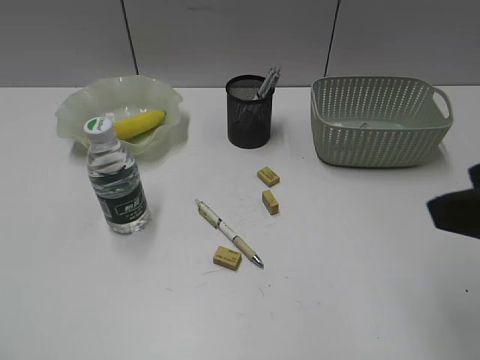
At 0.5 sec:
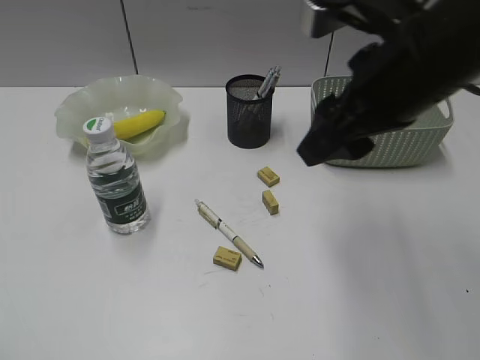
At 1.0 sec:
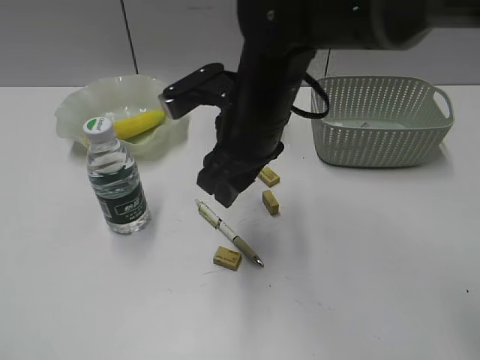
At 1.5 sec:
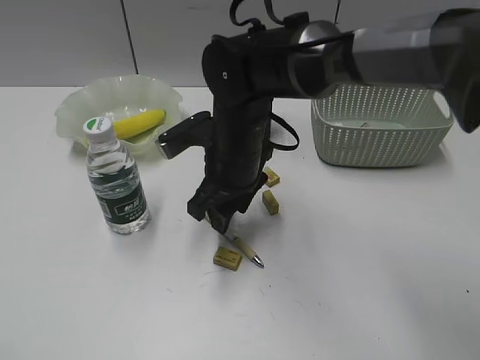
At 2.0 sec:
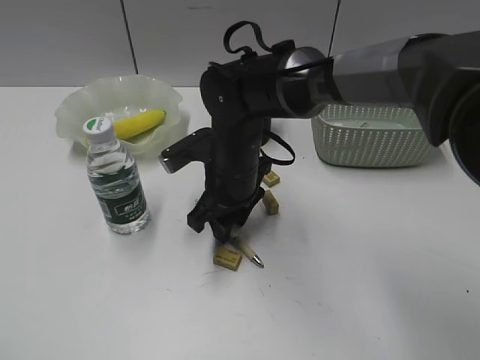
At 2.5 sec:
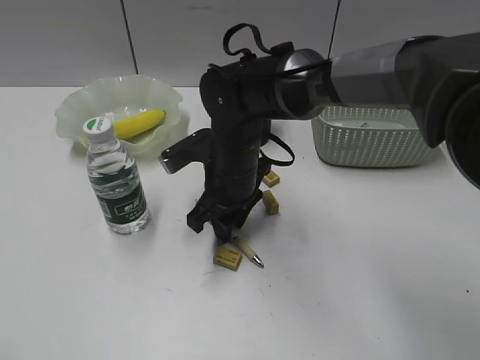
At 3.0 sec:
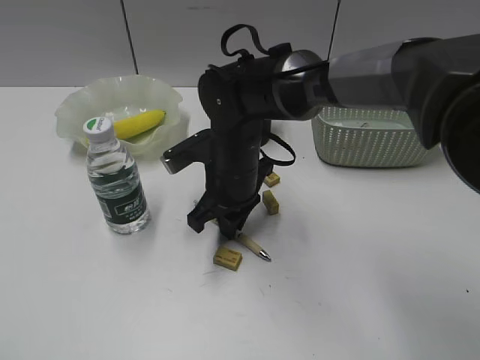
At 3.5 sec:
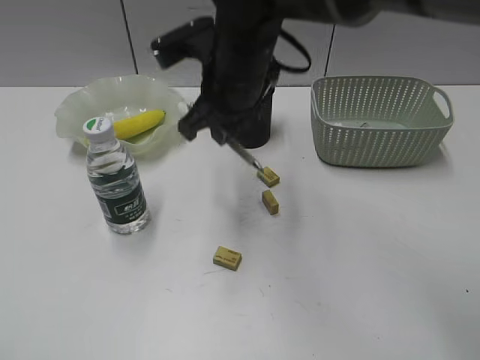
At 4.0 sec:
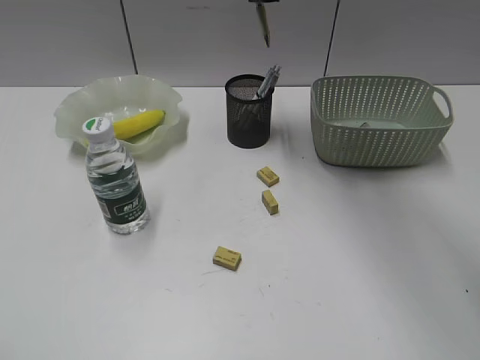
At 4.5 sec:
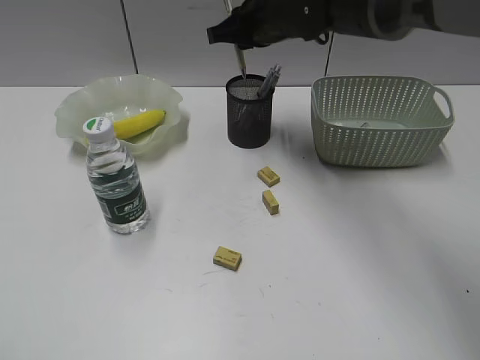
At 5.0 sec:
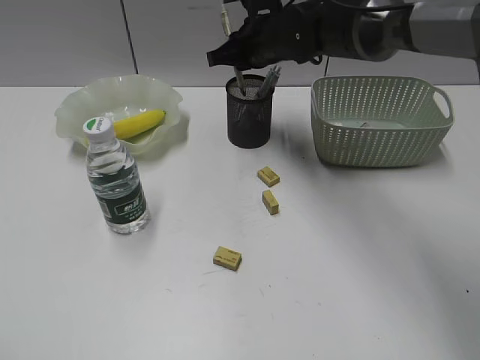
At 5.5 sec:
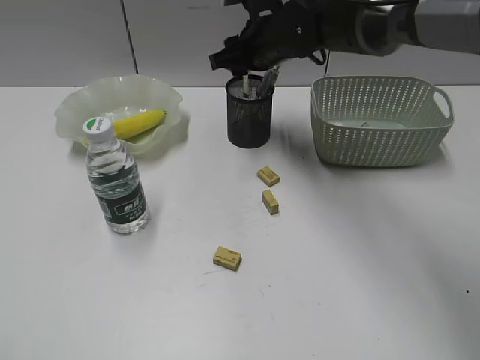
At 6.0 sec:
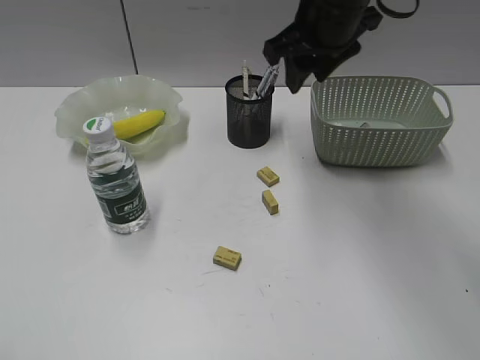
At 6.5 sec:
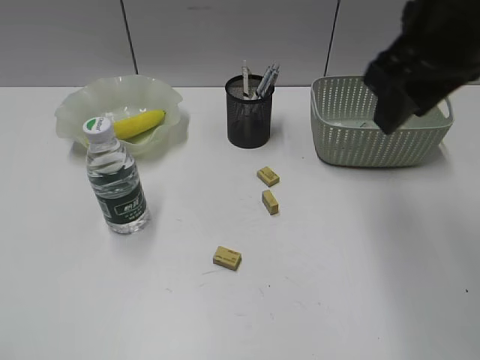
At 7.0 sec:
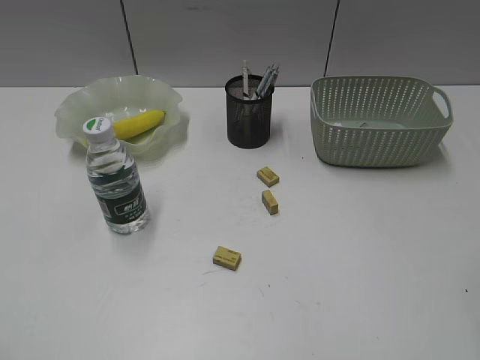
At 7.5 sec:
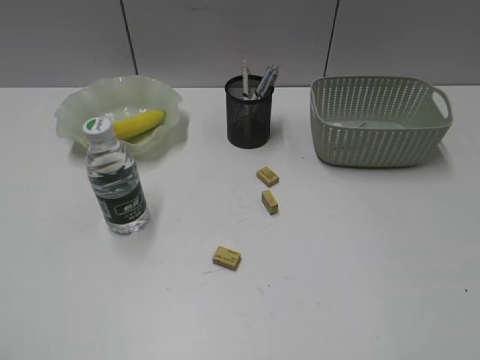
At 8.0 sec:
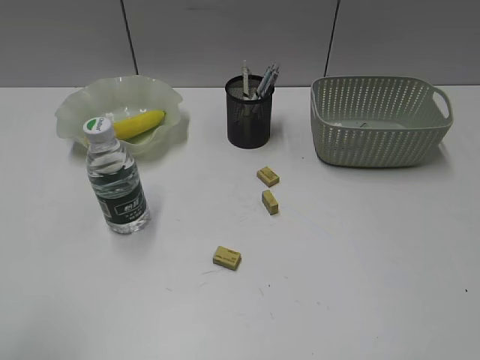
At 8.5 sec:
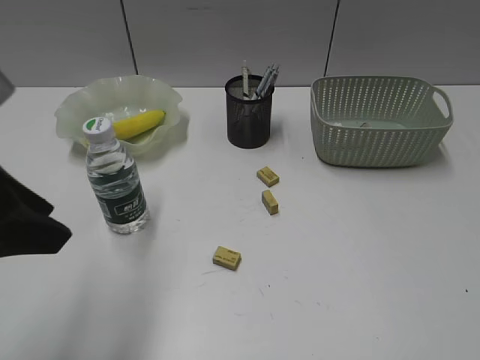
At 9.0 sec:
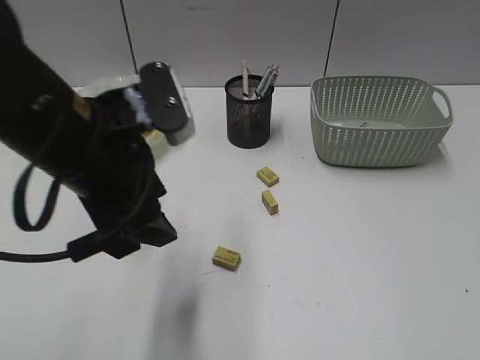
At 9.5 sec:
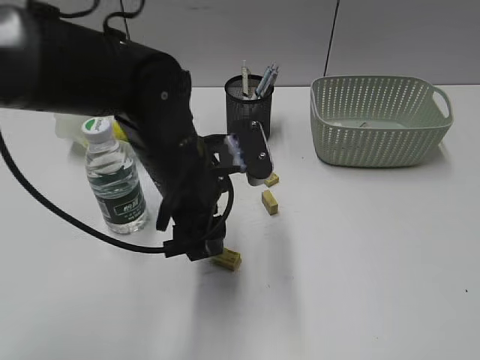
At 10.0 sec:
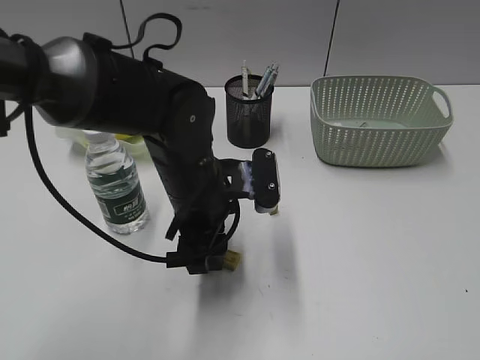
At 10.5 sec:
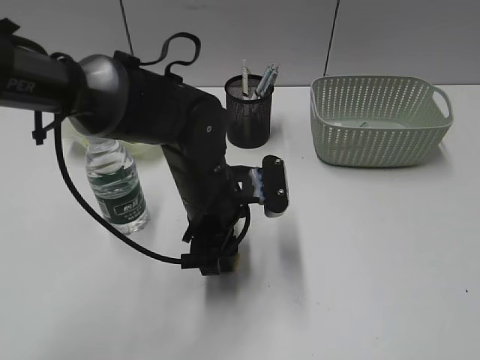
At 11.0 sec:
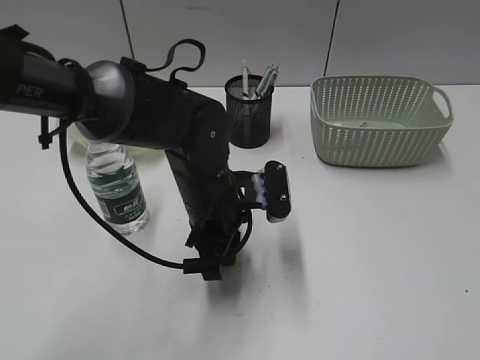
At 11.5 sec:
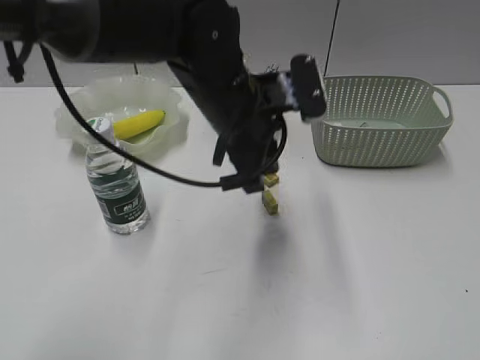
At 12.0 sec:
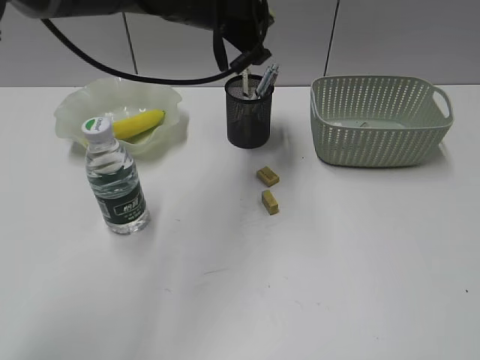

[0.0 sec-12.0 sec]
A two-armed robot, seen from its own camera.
Step, 0.0 sec to 3.0 sec: Grasp the yellow pen with right gripper.
Step, 3.5 sec to 5.5 sec: Place the yellow pen in pen holder with right gripper.
Step, 6.0 sec to 11.0 sec: Grasp the eraser with left gripper.
0.0 sec to 2.0 sec: The right gripper heads to the left, forward and downward, covering some 40 cm.
2.0 sec to 4.0 sec: The right gripper moves upward and forward, roughly 20 cm, and closes its fingers.
4.0 sec to 6.0 sec: The right gripper reaches some 10 cm downward, then returns, and opens its fingers.
6.0 sec to 8.0 sec: The right gripper heads backward and to the right, covering roughly 50 cm; the left gripper shifts by roughly 5 cm.
8.0 sec to 10.0 sec: The left gripper shifts about 40 cm to the right, forward and downward.
10.0 sec to 12.0 sec: The left gripper shifts some 20 cm upward and forward, and closes.

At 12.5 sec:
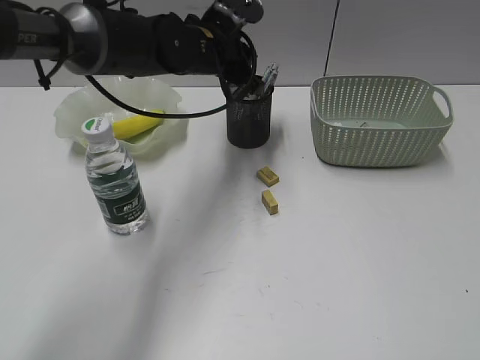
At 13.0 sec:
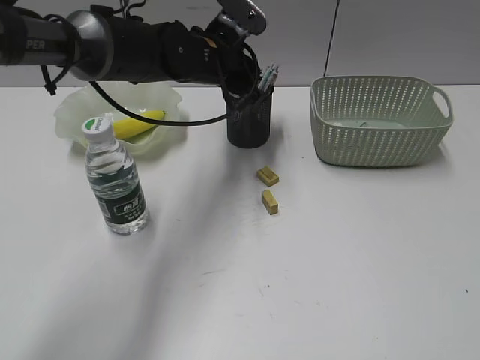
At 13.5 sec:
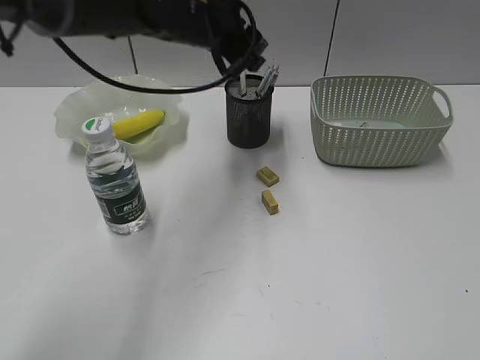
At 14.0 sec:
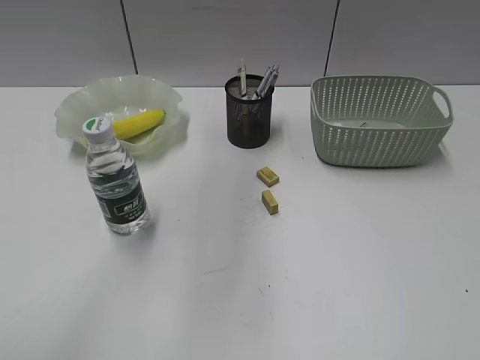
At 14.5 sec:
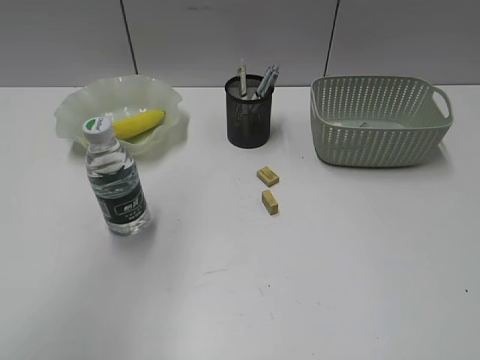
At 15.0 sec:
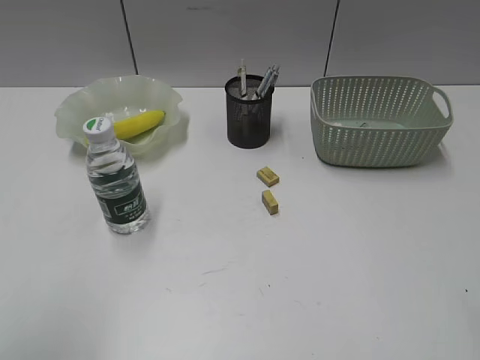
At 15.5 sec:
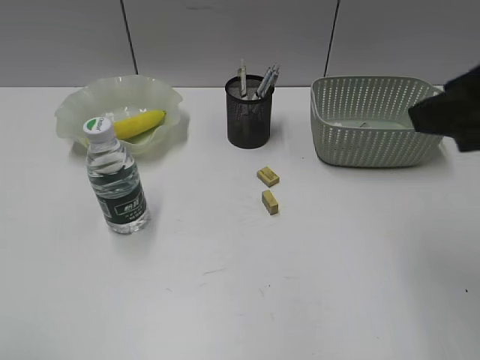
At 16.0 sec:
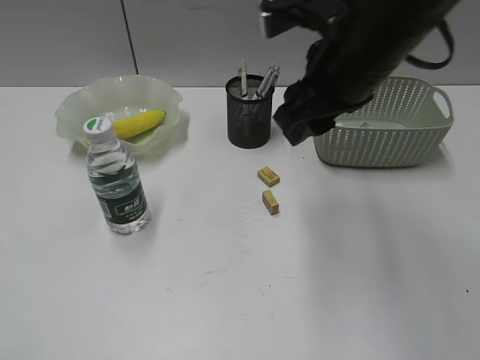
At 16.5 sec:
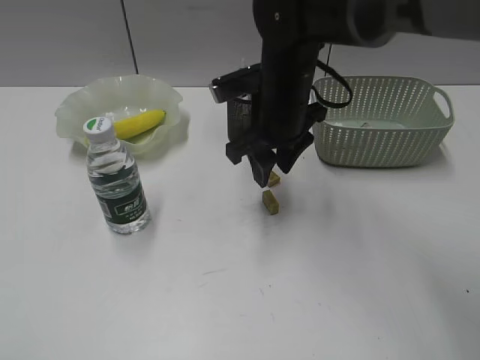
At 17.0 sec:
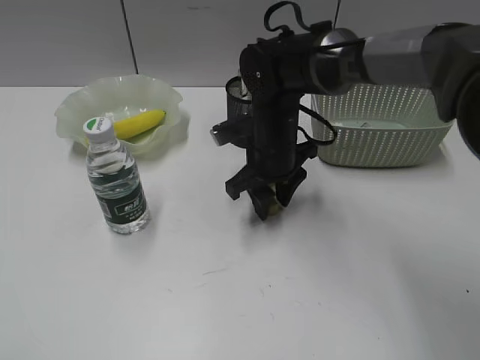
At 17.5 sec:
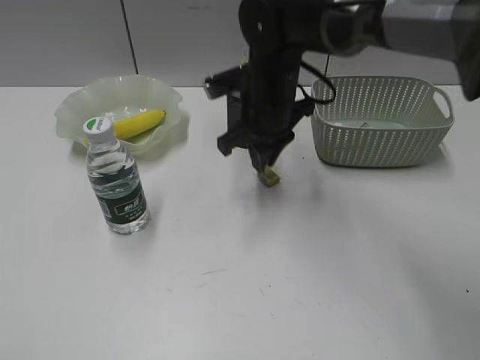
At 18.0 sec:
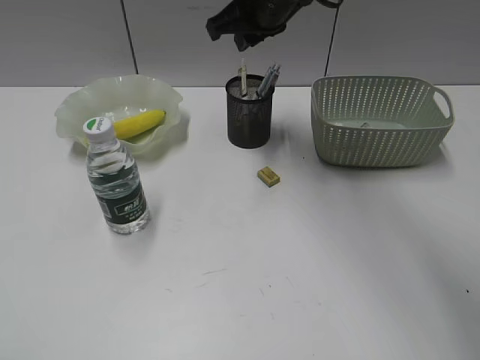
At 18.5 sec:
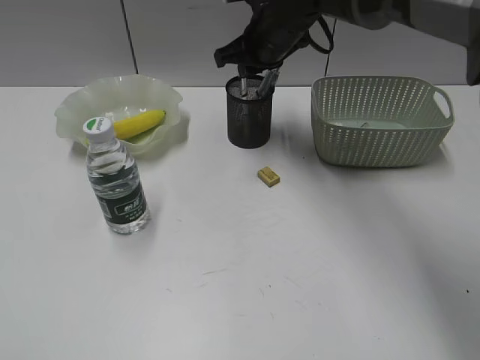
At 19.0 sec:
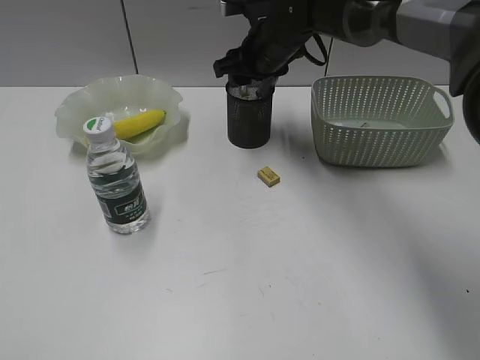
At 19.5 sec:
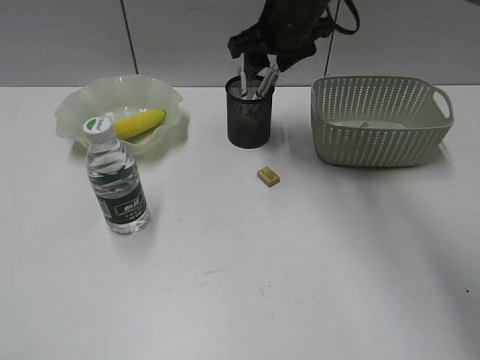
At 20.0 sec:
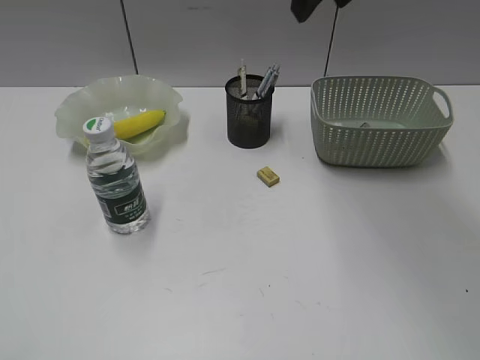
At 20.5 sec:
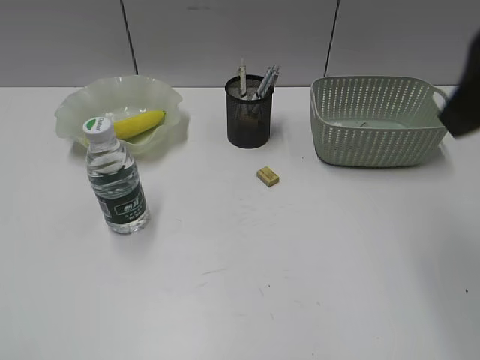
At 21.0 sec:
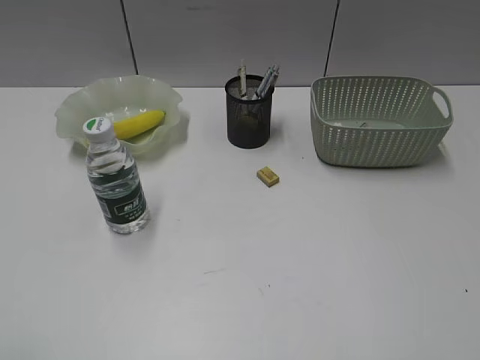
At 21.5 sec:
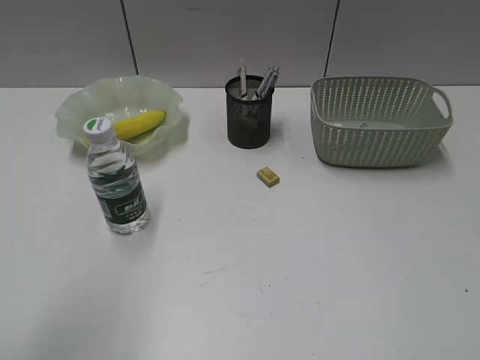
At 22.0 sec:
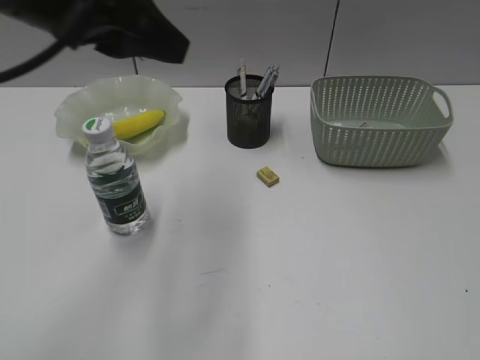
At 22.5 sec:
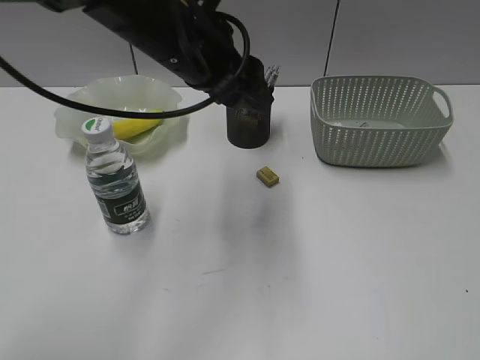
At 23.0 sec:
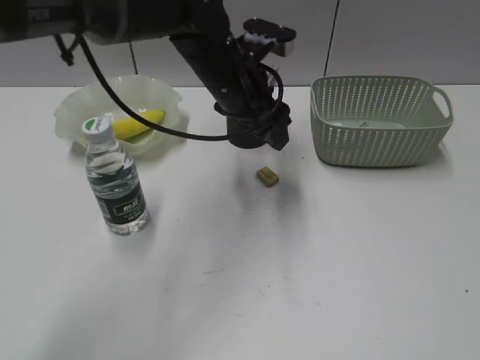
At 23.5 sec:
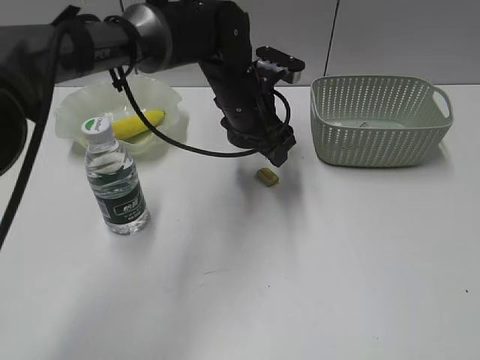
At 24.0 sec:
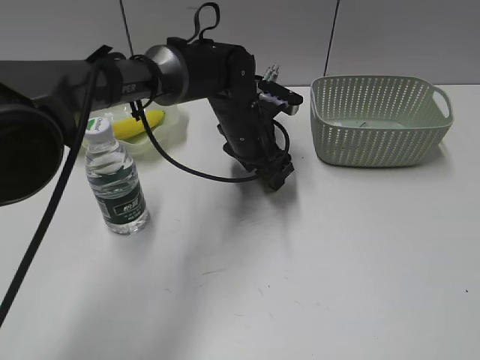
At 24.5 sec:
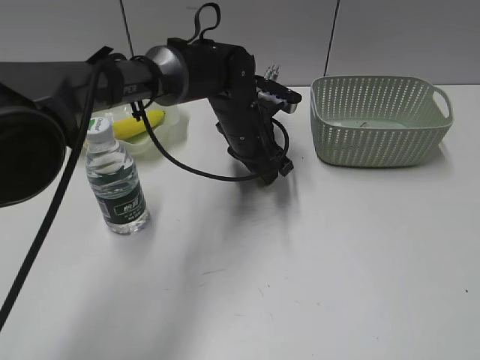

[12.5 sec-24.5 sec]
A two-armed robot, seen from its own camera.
Step, 13.5 sec to 17.0 sec: Grasp the eraser with right gripper.
Step, 17.5 sec to 19.0 sec: Place the eraser in pen holder with right gripper.
Step, 19.5 sec to 24.5 sec: Grasp the eraser with left gripper.
12.5 sec to 14.5 sec: The left gripper moves upward, backward and to the left, about 35 cm, and opens its fingers.
14.5 sec to 16.5 sec: The right gripper is displaced forward and to the left by about 50 cm. The left gripper goes approximately 30 cm backward, downward and to the left.
16.5 sec to 18.5 sec: The right gripper goes up and down, roughly 15 cm each way, reversing 2 times, and closes.
18.5 sec to 20.5 sec: The right gripper moves backward, upward and to the right, some 35 cm, and opens its fingers.
20.5 sec to 22.5 sec: The right gripper travels backward, to the right and downward by approximately 25 cm, while the left gripper heads forward and to the right, covering some 40 cm.
22.5 sec to 24.5 sec: The left gripper moves downward, forward and to the right, some 20 cm.

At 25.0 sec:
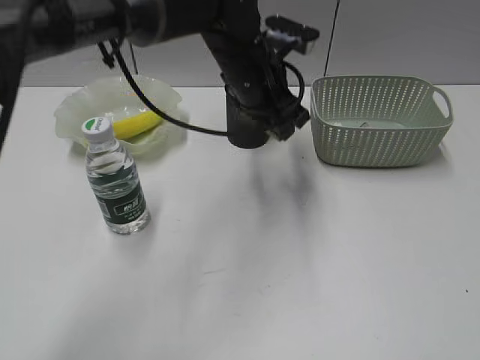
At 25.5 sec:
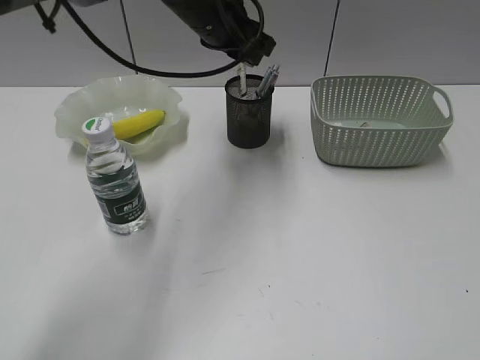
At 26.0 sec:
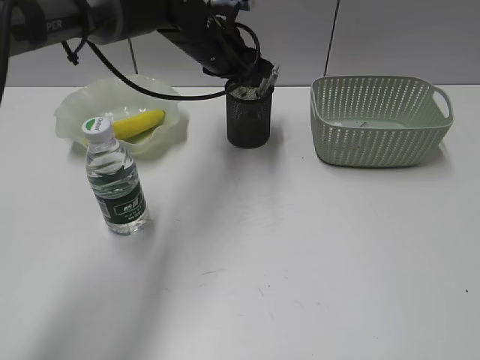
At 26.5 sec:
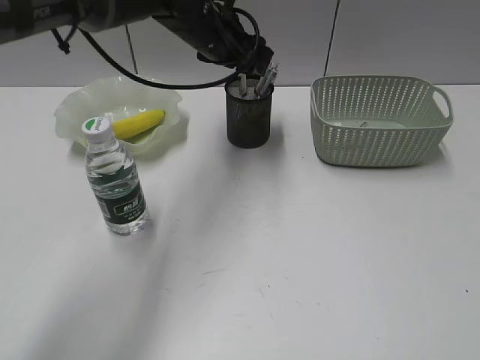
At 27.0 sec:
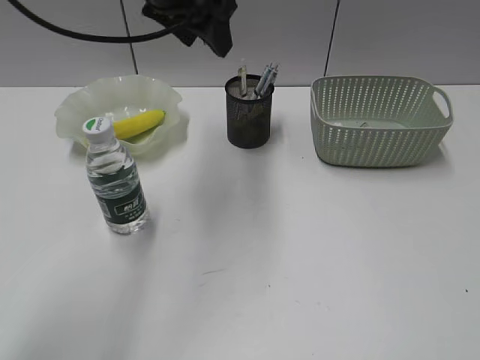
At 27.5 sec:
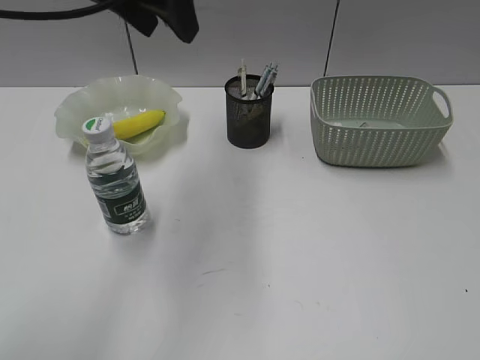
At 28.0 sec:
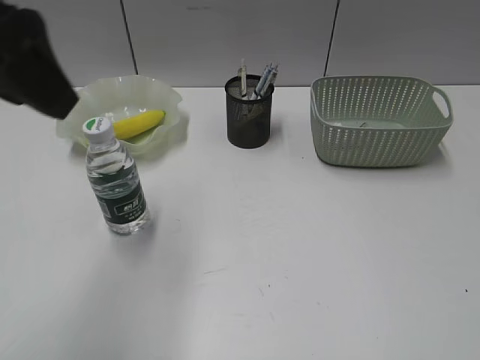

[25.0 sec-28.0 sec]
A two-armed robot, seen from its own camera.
Step, 25.0 sec to 26.0 sec: Place the eraser in pen holder with left gripper.
25.0 sec to 26.5 sec: The left gripper travels forward and to the left by roughly 10 cm, and opens its fingers.
26.5 sec to 28.0 sec: The left gripper shifts some 35 cm backward, to the left and upward.
